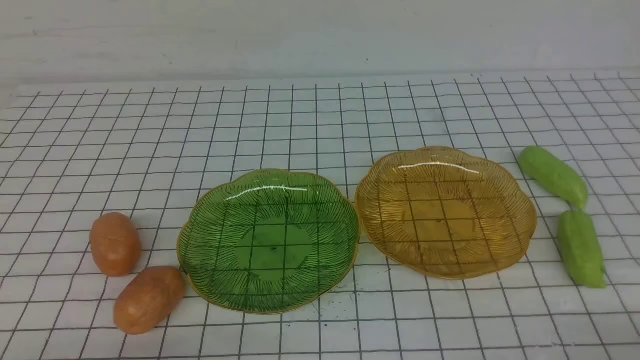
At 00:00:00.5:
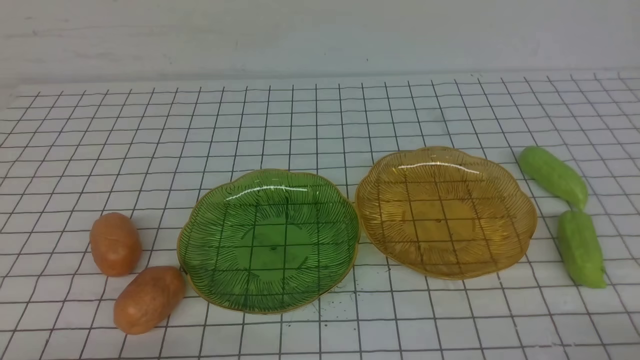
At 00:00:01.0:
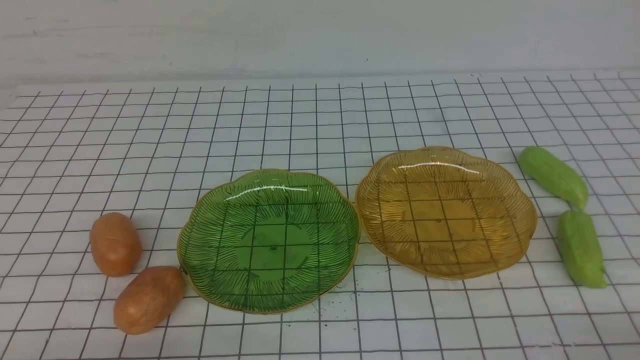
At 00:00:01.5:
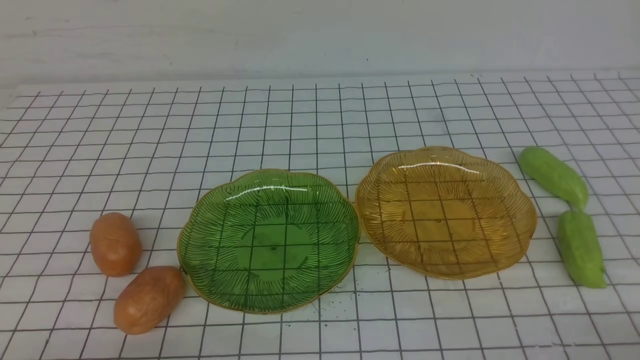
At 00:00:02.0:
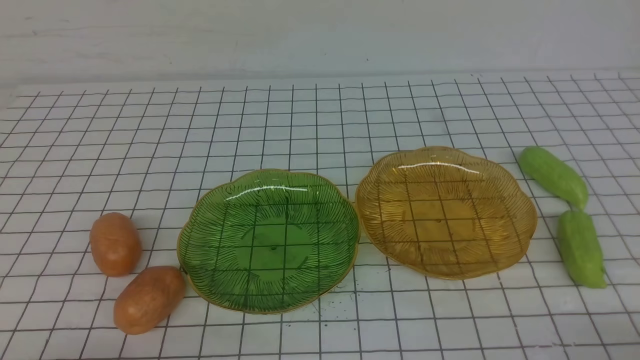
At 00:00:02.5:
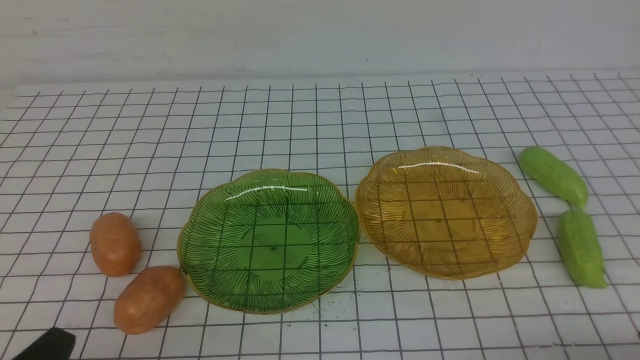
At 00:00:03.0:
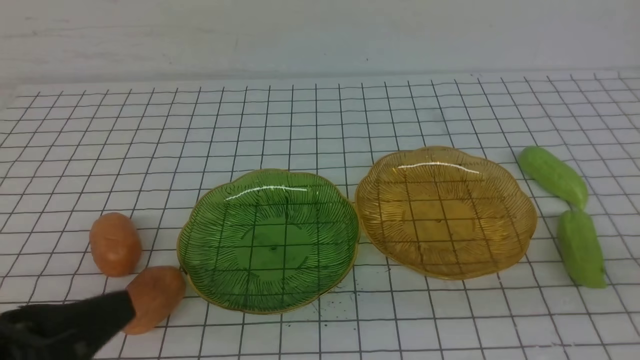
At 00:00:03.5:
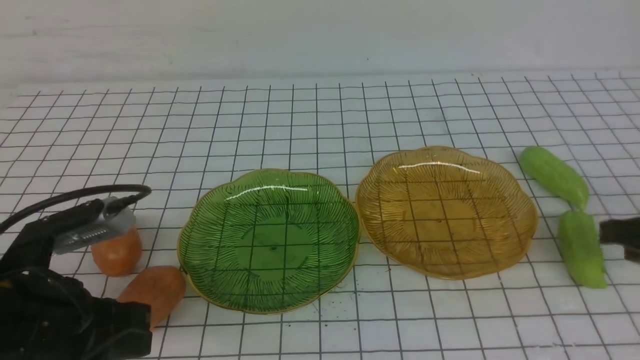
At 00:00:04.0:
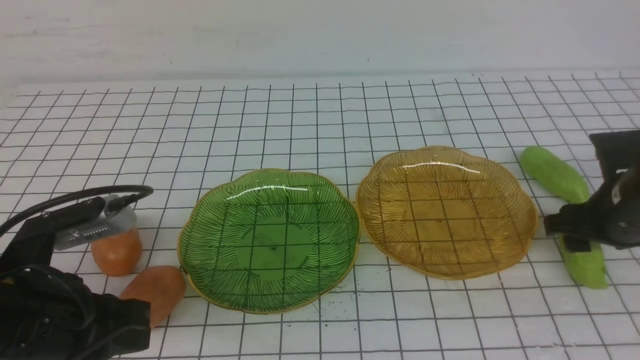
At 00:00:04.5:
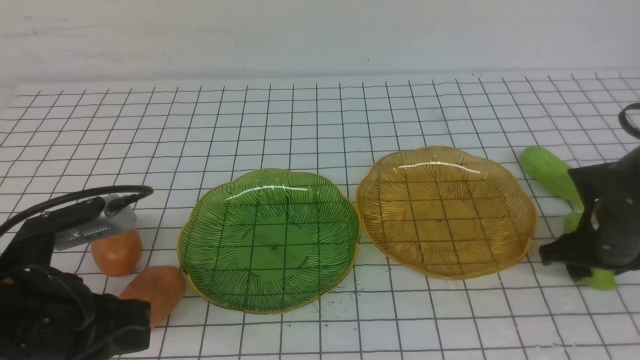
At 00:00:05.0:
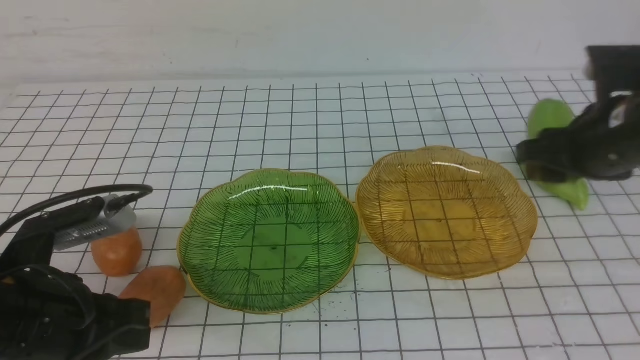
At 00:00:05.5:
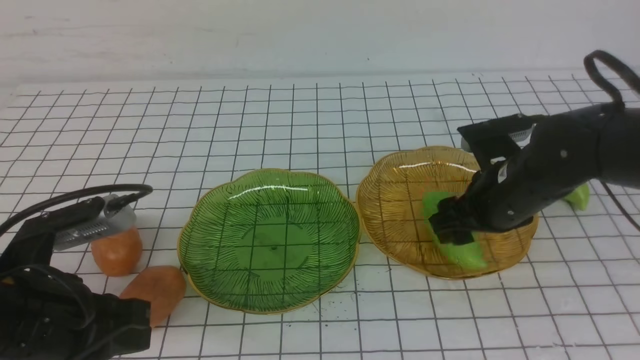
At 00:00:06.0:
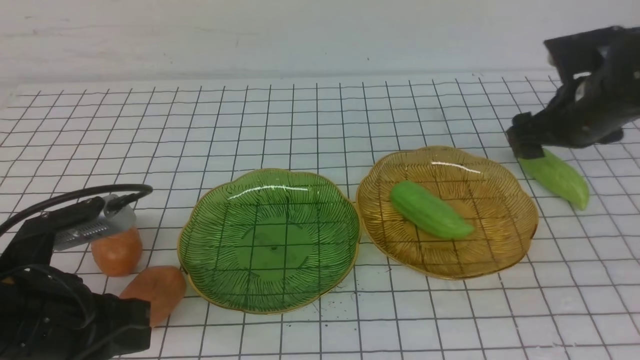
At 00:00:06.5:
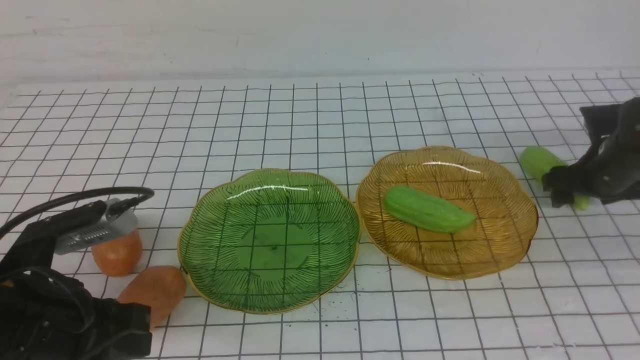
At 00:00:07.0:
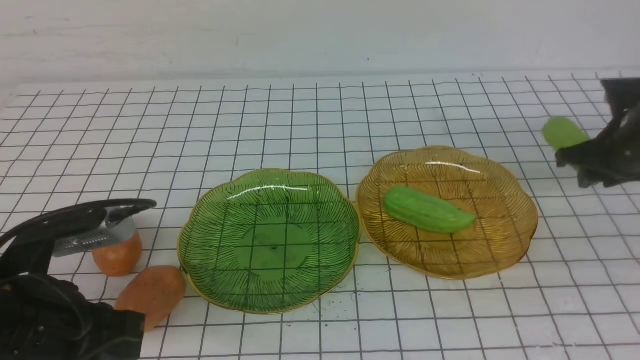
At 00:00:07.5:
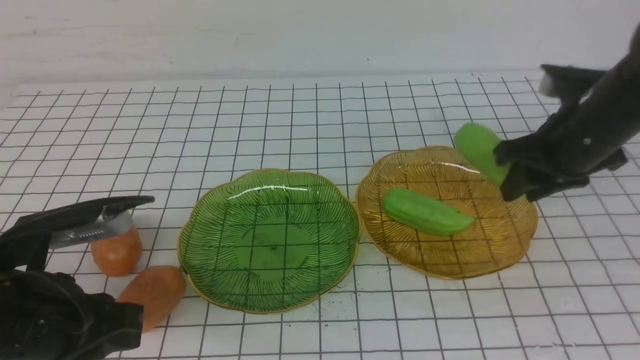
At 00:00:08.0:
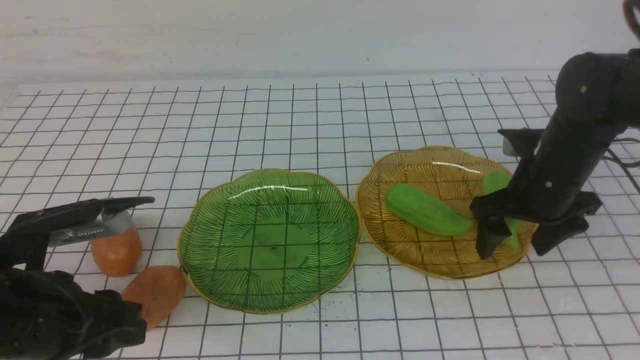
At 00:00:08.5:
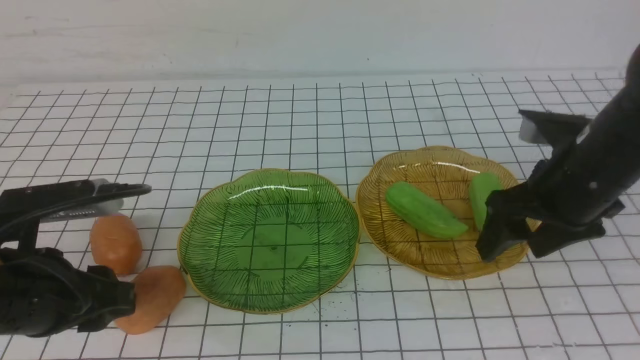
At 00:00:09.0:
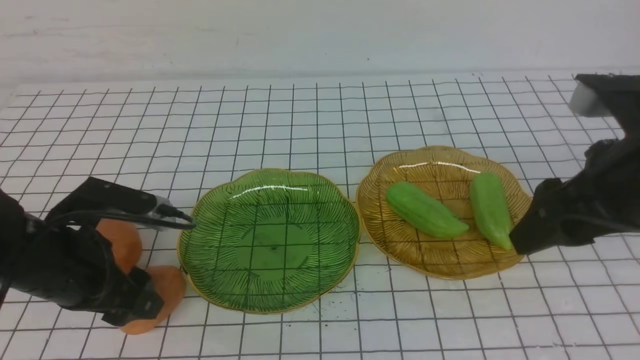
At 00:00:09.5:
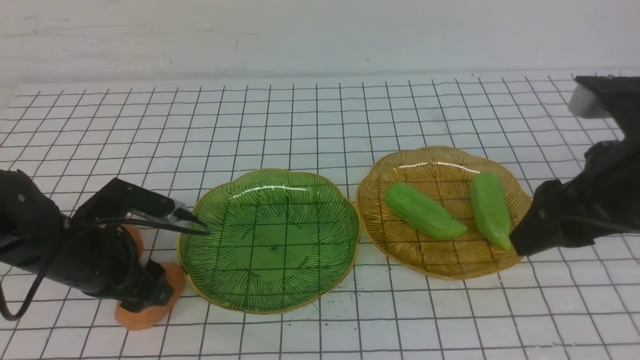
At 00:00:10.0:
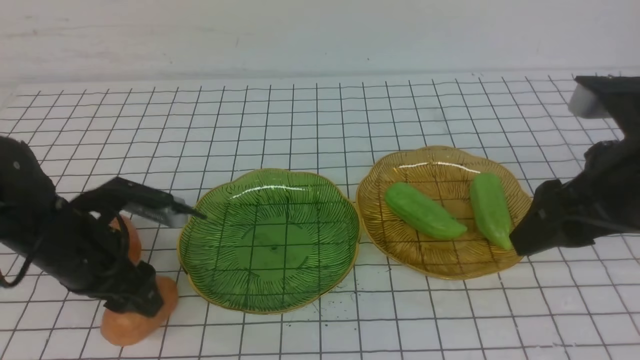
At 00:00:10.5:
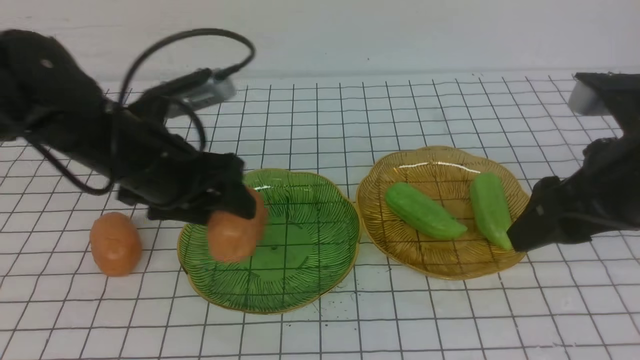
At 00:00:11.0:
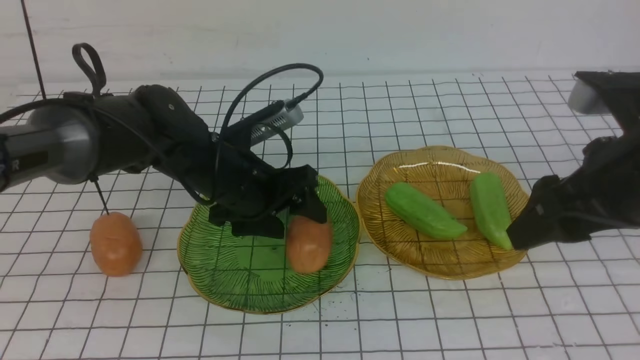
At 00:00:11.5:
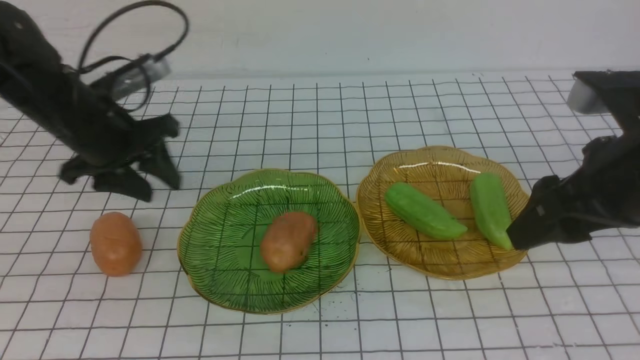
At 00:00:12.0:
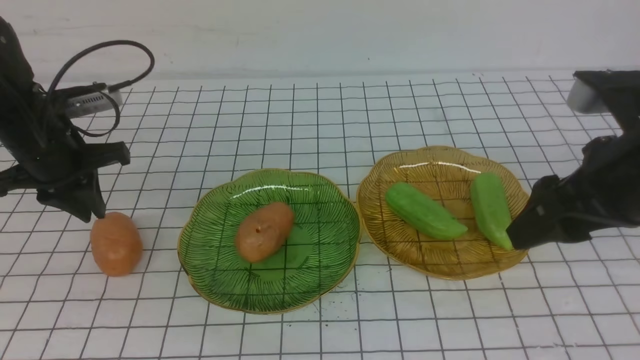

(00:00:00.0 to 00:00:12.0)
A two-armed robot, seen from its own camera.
Step, 00:00:00.0 - 00:00:08.0: use the right arm to grab a chayote and put it into the right plate.
00:00:02.0 - 00:00:04.0: The left gripper heads forward and upward, covering some 15 cm; the right gripper heads forward, covering approximately 25 cm, and opens up.
00:00:04.0 - 00:00:06.0: The right gripper shifts approximately 10 cm forward, and travels to the left and back again, approximately 10 cm each way.
00:00:06.0 - 00:00:08.0: The left gripper opens its fingers. The right gripper closes and opens again.
00:00:08.0 - 00:00:10.0: The right gripper goes about 15 cm backward and upward, while the left gripper goes roughly 10 cm forward.
00:00:10.0 - 00:00:12.0: The left gripper goes about 10 cm forward, reaches roughly 10 cm to the right, then returns, and closes its fingers.

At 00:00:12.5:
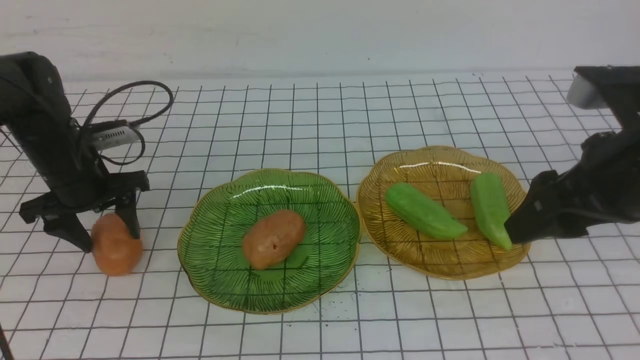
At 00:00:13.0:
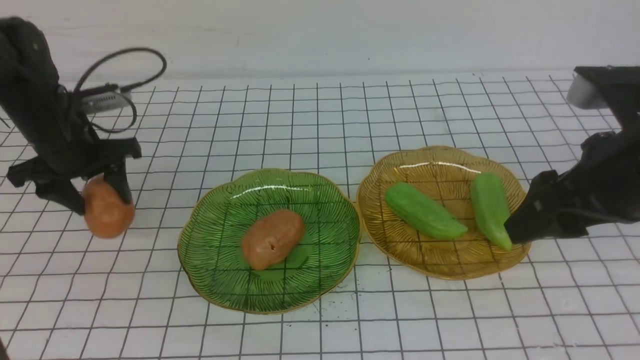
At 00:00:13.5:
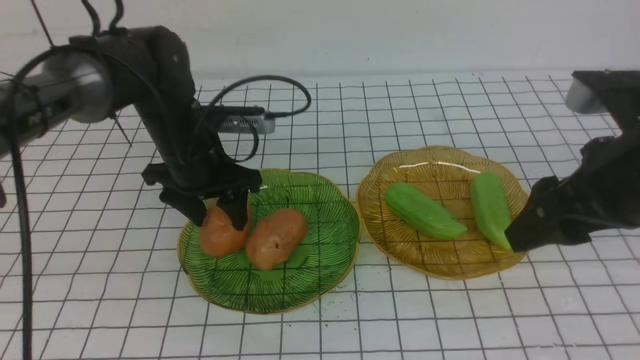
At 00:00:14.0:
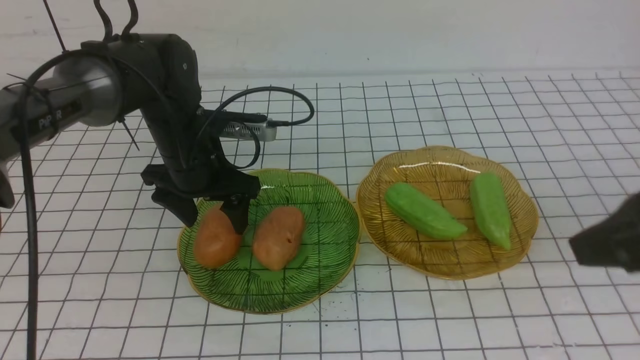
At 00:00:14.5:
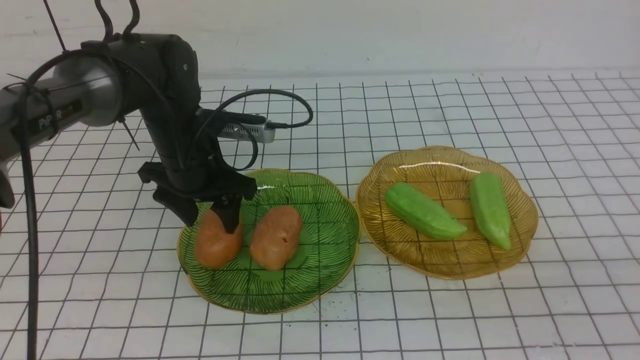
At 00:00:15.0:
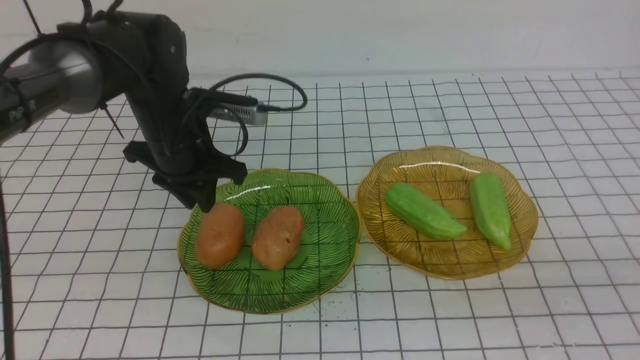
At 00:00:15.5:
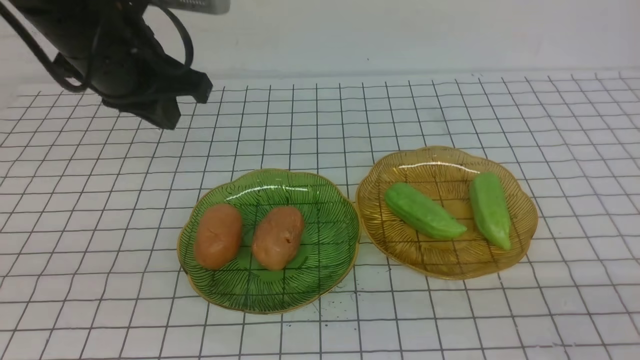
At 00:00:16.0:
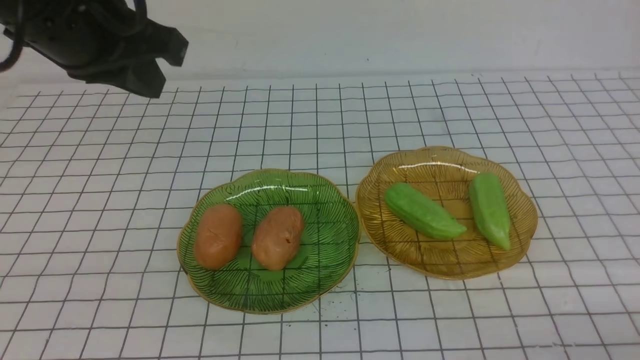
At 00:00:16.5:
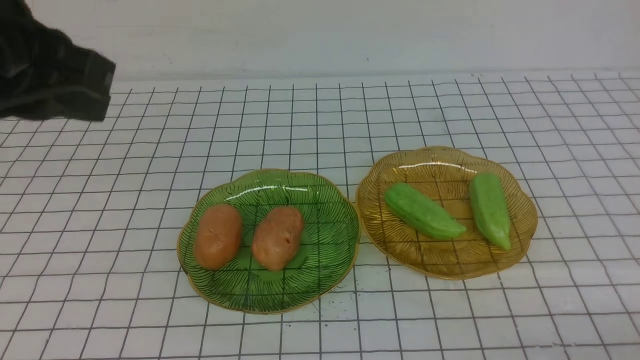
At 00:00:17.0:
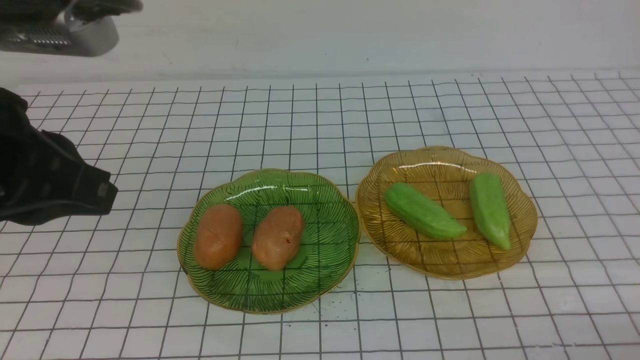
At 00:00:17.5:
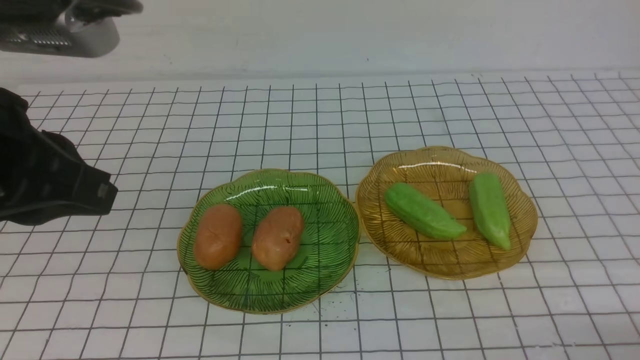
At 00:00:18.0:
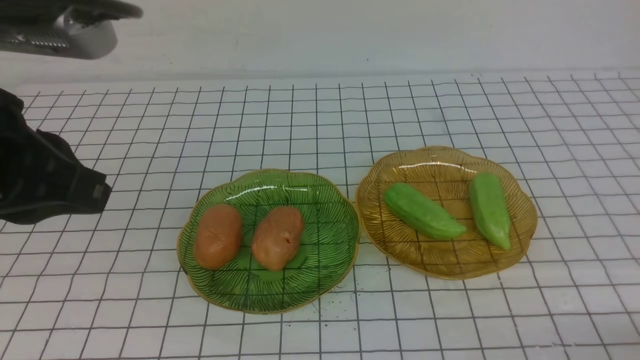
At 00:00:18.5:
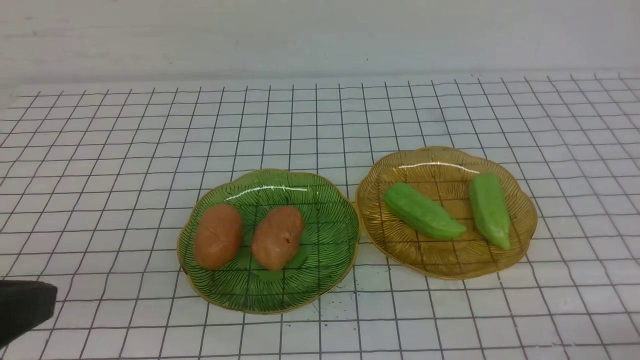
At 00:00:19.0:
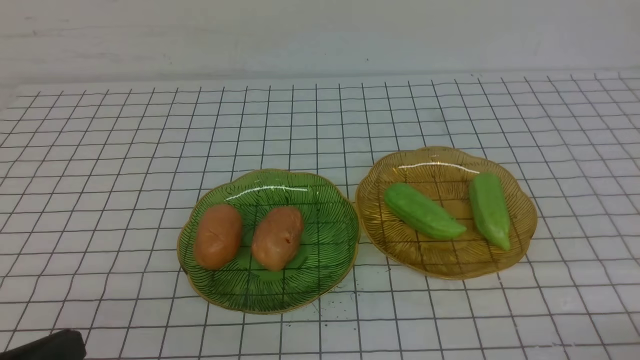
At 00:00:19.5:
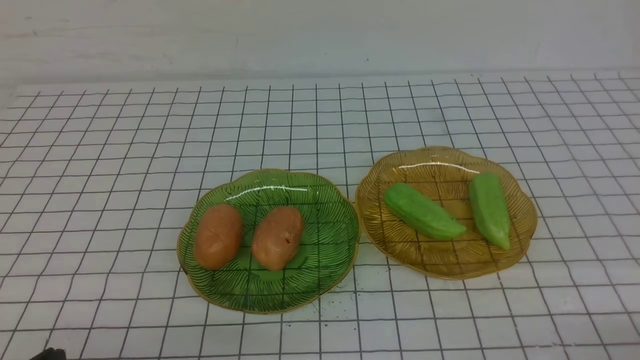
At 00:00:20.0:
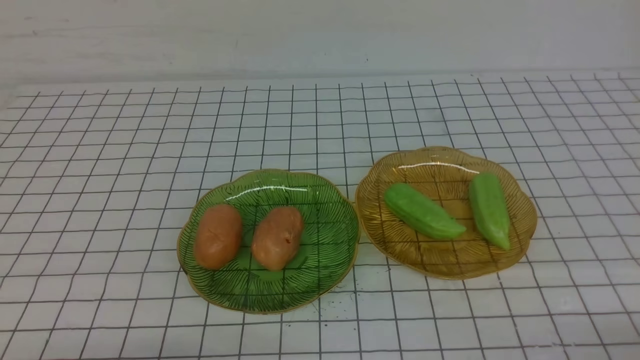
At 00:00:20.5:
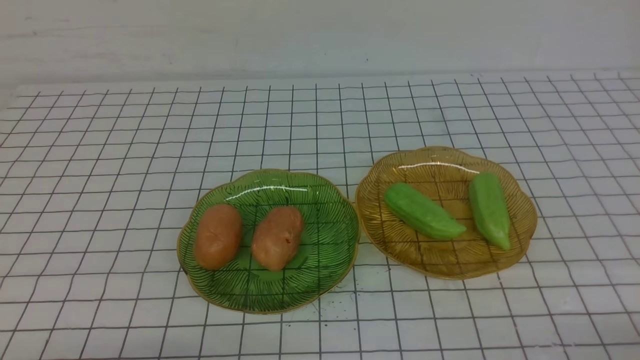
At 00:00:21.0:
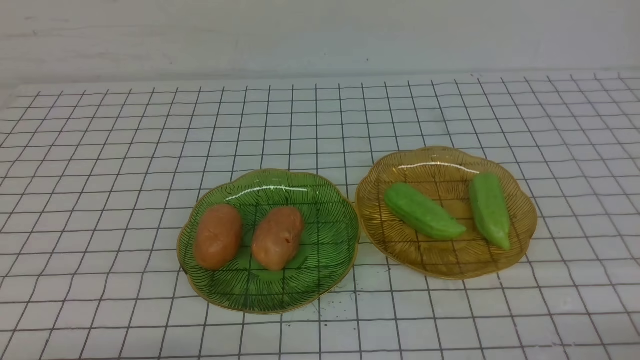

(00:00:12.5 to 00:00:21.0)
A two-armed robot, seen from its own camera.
Step, 00:00:12.5 - 00:00:15.0: Grab a potato with your left arm and put it on the left plate.
00:00:12.5 - 00:00:14.5: The left gripper heads to the right, covering roughly 15 cm, while the right gripper goes roughly 20 cm backward, and closes its fingers.
00:00:14.5 - 00:00:16.5: The left gripper shifts some 30 cm upward and backward, and closes up; the right gripper is displaced downward by roughly 10 cm.
00:00:16.5 - 00:00:19.0: The left gripper shifts some 25 cm downward and backward.
00:00:19.0 - 00:00:21.0: The left gripper moves downward, approximately 10 cm.
